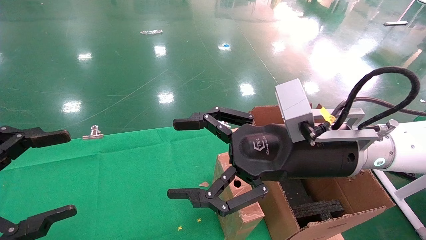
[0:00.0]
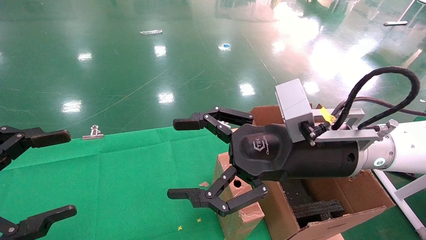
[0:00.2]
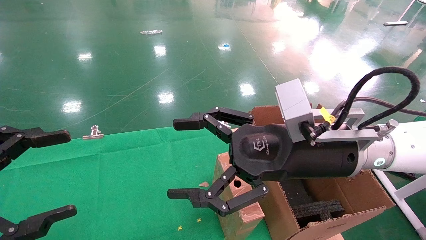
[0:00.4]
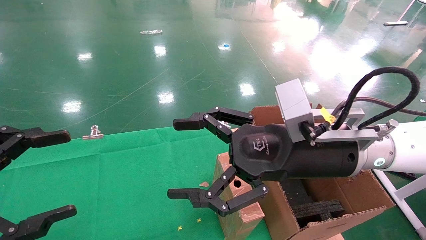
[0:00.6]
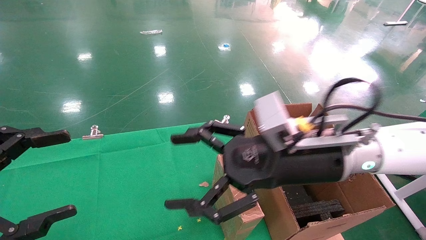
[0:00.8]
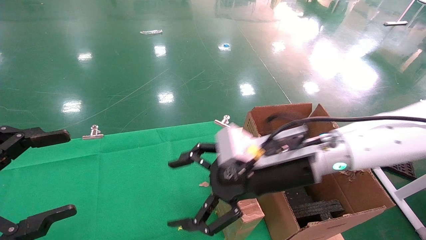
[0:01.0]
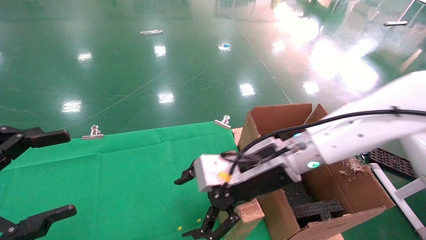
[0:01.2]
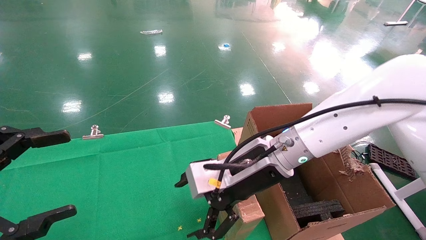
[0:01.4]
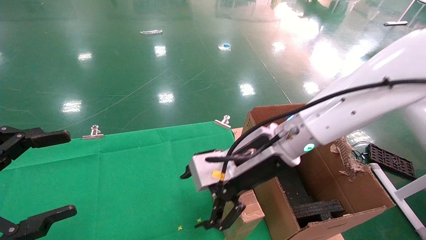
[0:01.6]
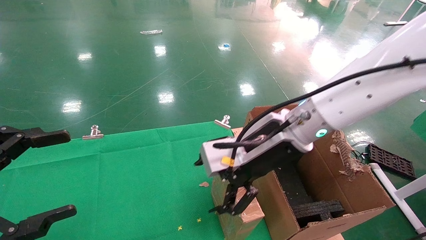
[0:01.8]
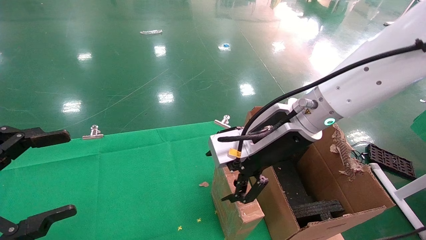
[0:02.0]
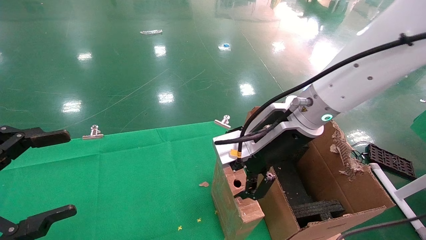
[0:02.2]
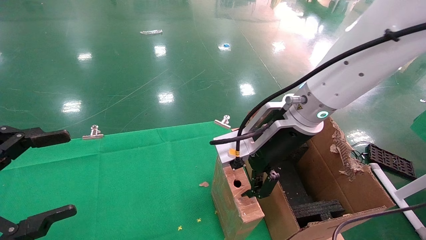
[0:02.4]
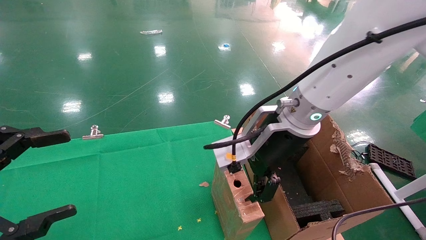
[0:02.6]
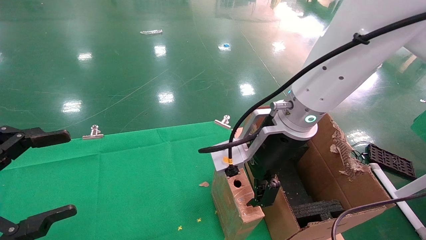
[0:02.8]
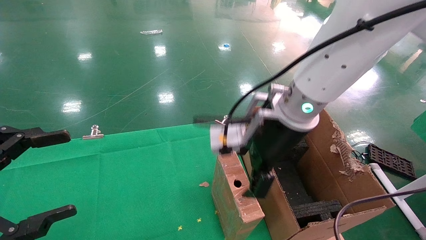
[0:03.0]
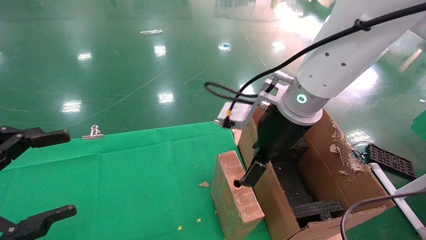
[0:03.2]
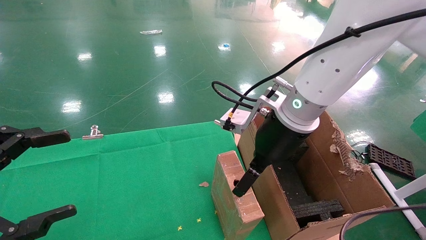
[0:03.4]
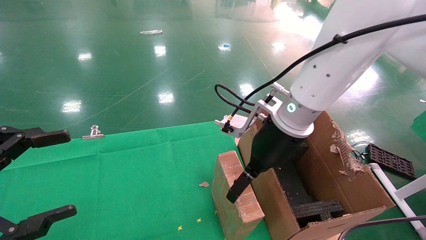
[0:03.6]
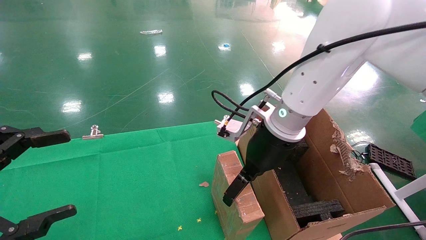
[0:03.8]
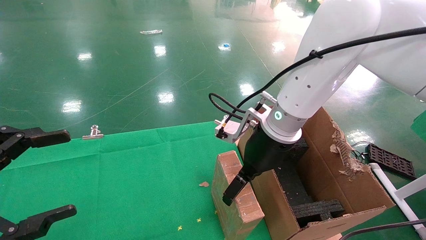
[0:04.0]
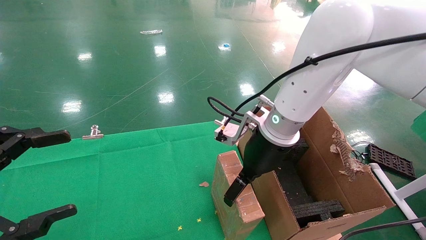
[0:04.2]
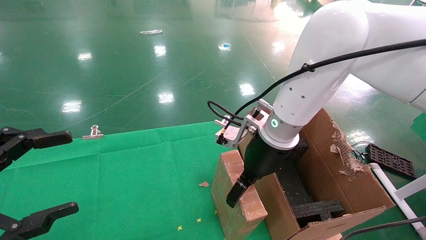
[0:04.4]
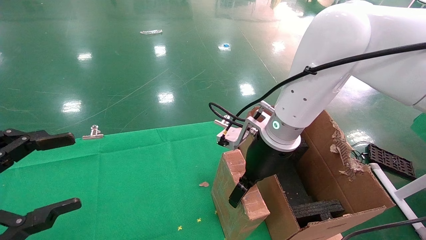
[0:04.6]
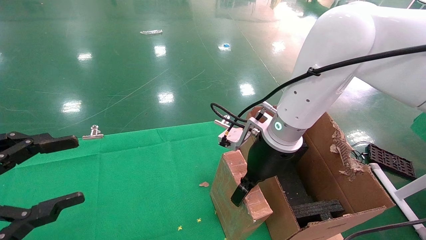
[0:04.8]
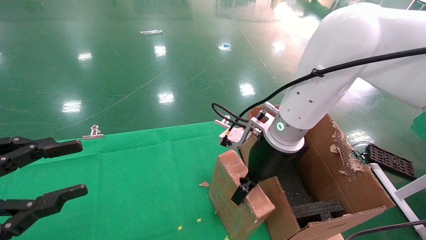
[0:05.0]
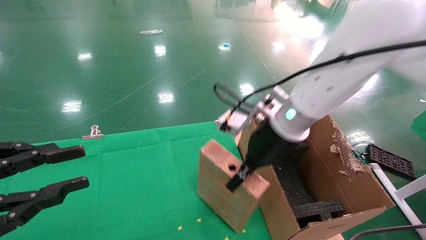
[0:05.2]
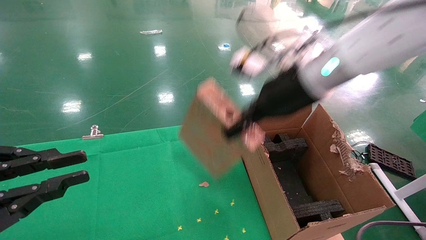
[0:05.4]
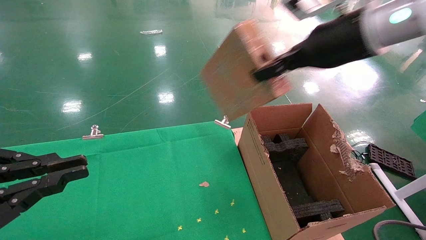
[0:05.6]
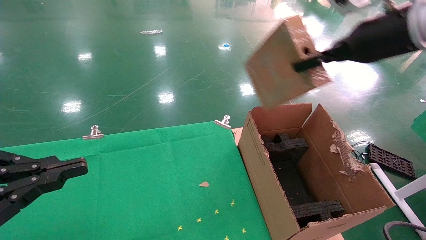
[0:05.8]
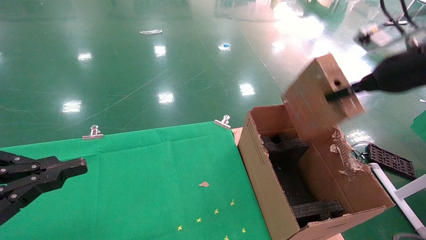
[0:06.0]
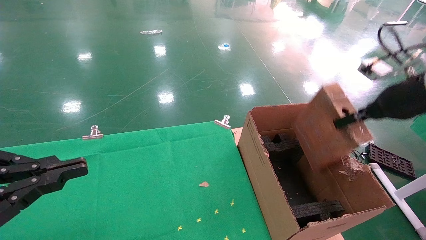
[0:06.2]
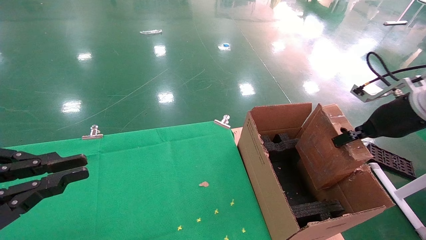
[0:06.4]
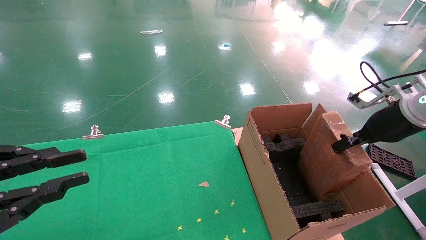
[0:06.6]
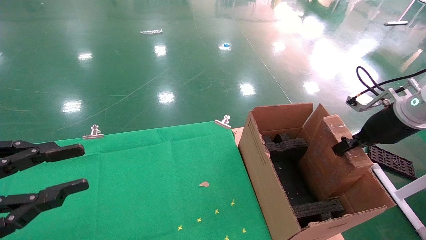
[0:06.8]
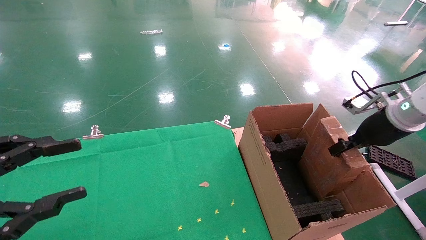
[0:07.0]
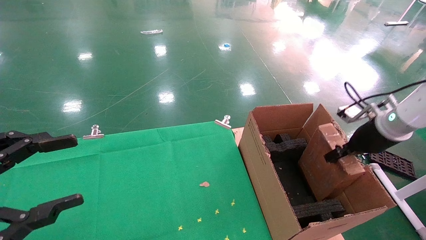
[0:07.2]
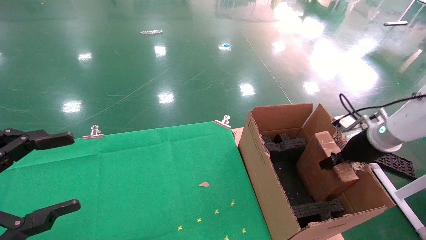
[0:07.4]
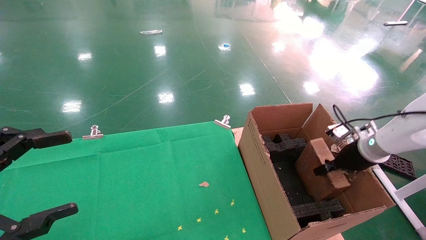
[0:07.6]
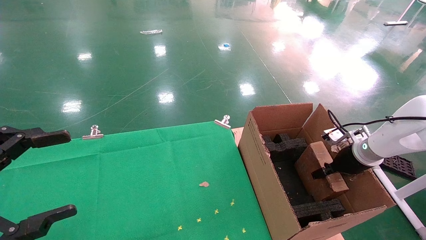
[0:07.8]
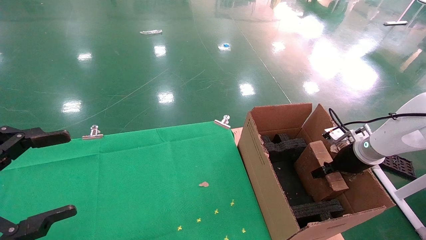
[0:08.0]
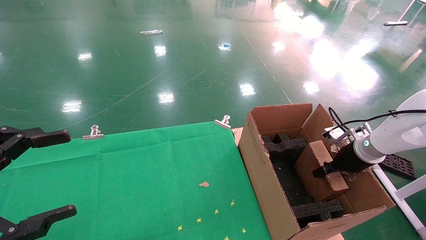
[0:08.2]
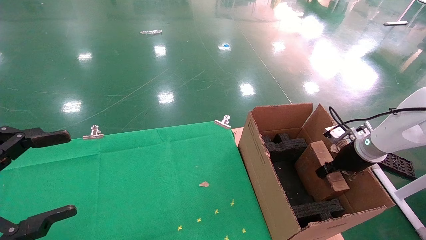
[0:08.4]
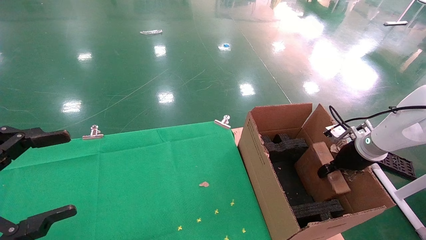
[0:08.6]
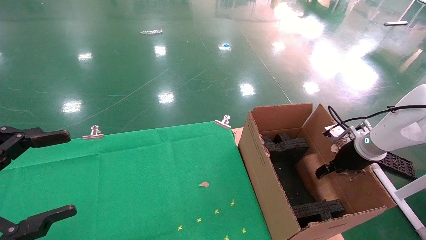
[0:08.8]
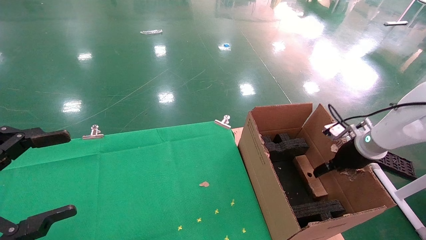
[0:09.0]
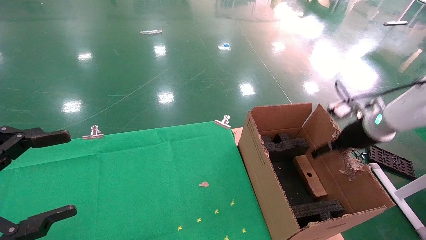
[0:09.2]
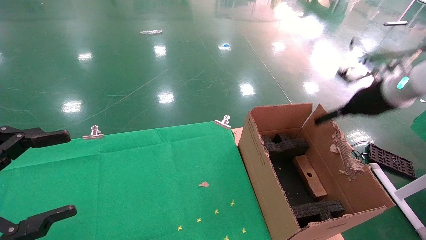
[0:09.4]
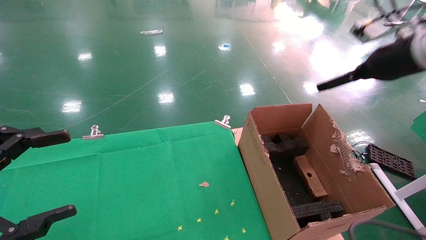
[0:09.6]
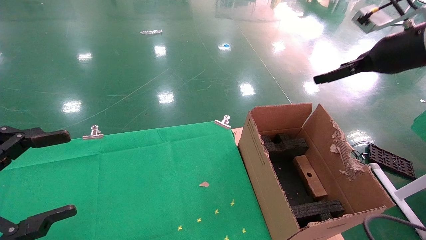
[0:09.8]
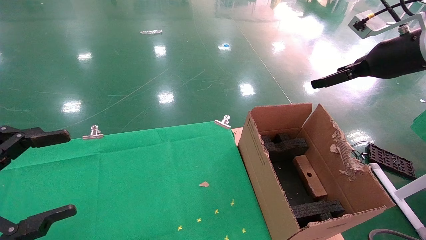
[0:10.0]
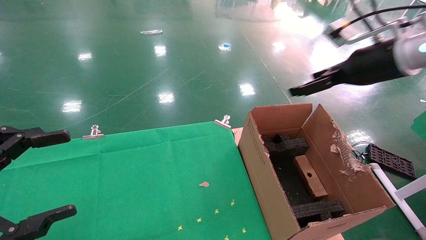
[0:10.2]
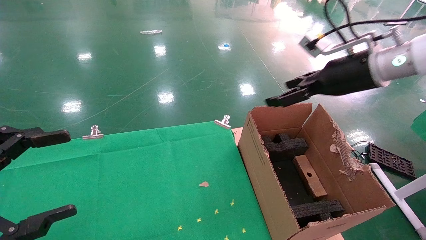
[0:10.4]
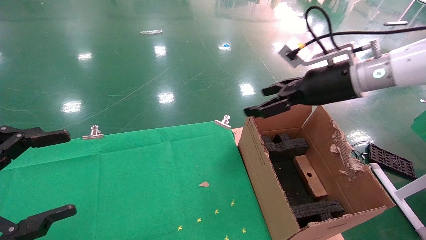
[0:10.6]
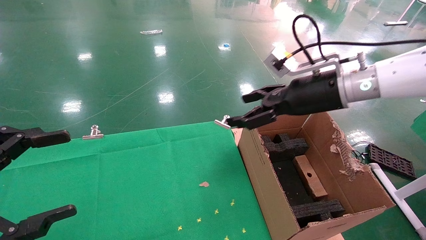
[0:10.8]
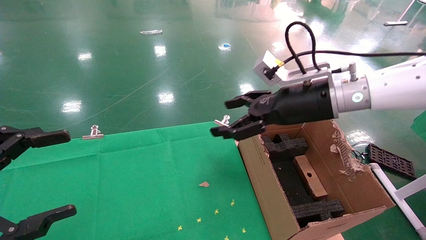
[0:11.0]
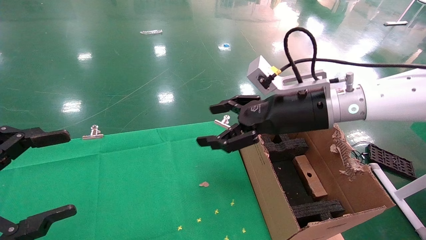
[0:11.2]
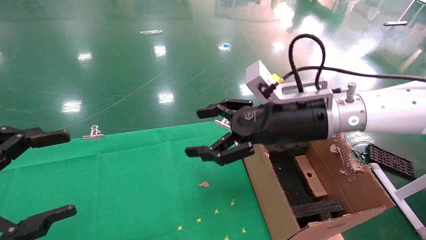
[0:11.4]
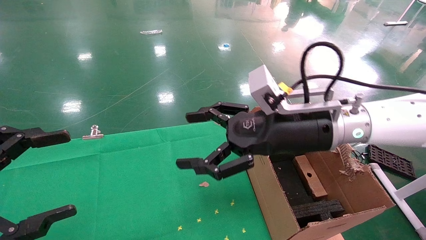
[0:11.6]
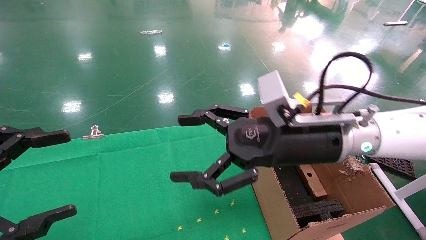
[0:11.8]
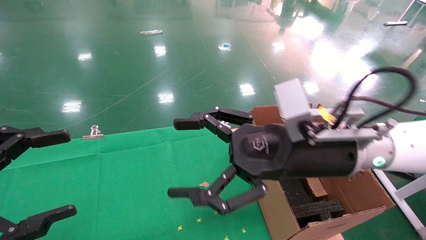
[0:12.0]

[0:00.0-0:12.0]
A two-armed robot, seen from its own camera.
Task of the whole recording: using a robotic arm to pick up a cardboard box and palace it the carton.
Step, 1.0 to 5.2 s: Pick up the mouse and the power cord paper box.
Step, 5.4 to 9.6 s: Place the mouse and the power cord paper box into the container.
0.0 to 1.6 s: The right gripper moves forward and to the left, about 10 cm.
1.6 to 3.0 s: The right gripper shifts roughly 5 cm upward.
3.0 to 4.4 s: The right gripper goes some 5 cm downward.
4.4 to 6.0 s: The right gripper is displaced to the right and upward by some 25 cm, and closes up, while the left gripper closes its fingers.
6.0 to 7.6 s: The right gripper goes approximately 20 cm downward. The left gripper opens up.
7.6 to 9.0 s: The right gripper opens its fingers.
9.0 to 10.4 s: The right gripper shifts roughly 20 cm upward and to the left, and opens.
10.4 to 12.0 s: The right gripper is displaced to the left, backward and downward by approximately 20 cm.

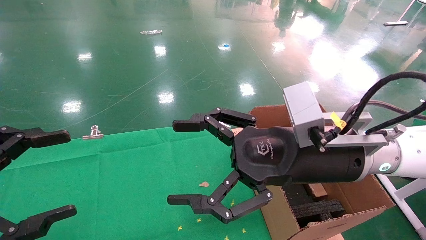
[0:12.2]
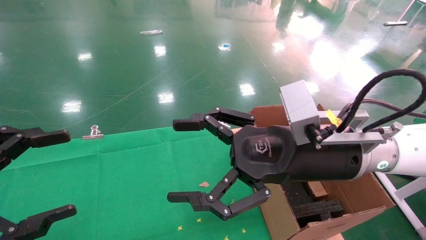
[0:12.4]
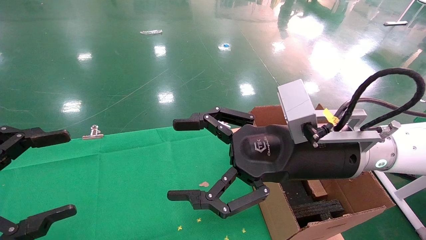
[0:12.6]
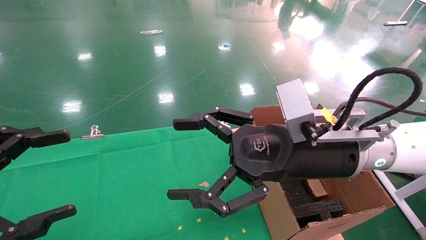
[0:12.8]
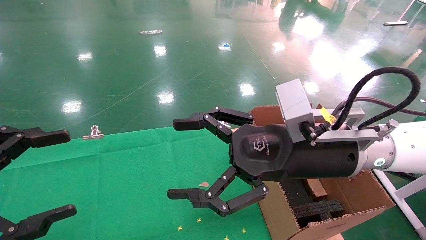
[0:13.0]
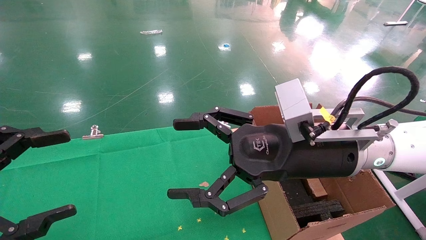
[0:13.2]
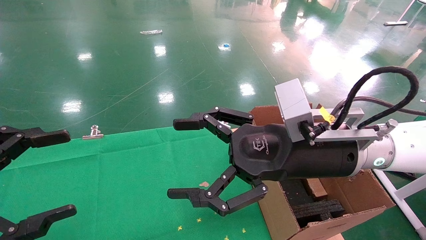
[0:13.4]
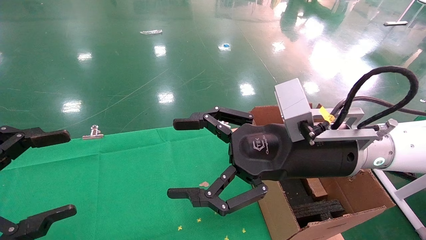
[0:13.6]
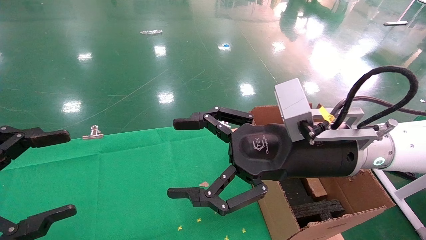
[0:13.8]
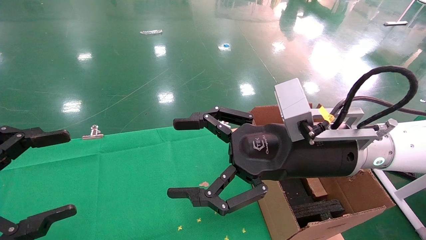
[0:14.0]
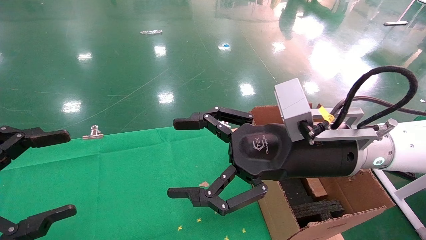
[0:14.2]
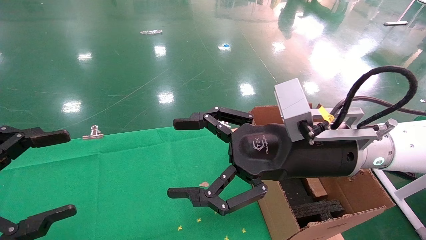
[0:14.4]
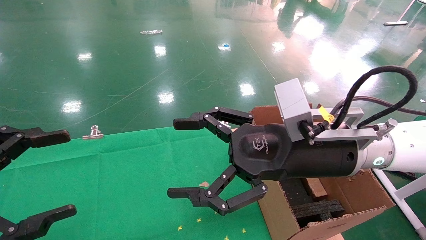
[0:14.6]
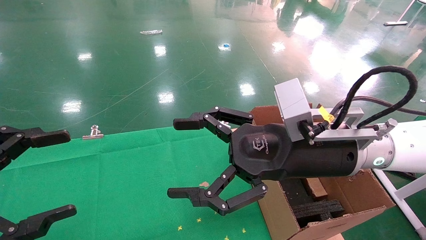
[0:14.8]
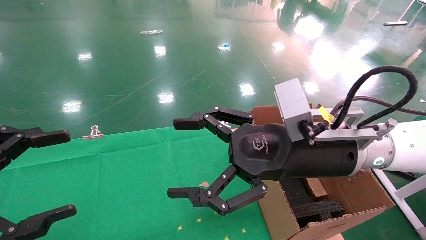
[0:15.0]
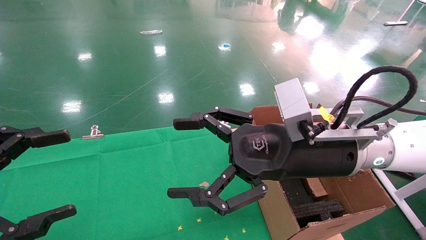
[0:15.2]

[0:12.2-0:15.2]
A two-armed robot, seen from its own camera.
Task of the whole recording: using a robotic arm to pick up a cardboard box and palace it the carton.
12.2 to 15.2 s: Both grippers stay about where they are.

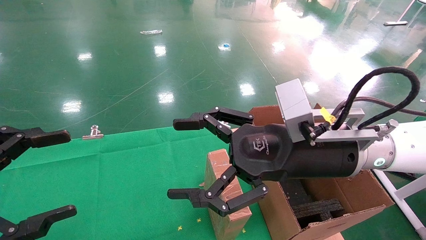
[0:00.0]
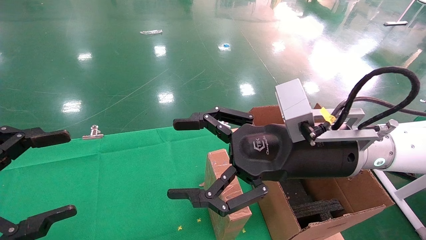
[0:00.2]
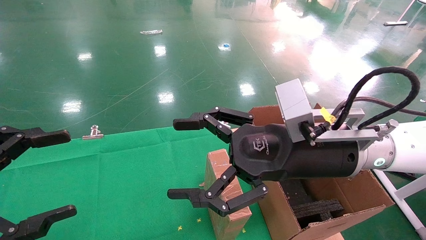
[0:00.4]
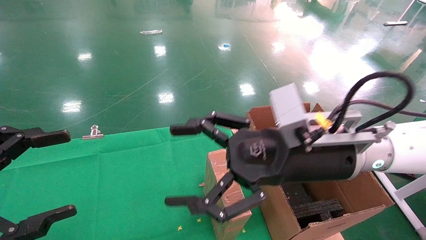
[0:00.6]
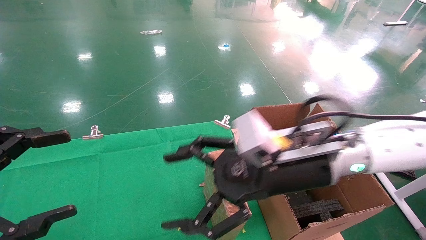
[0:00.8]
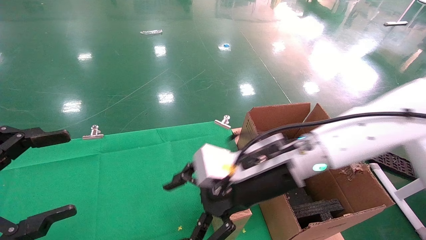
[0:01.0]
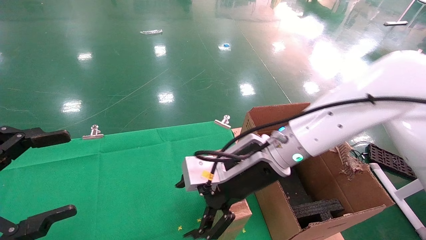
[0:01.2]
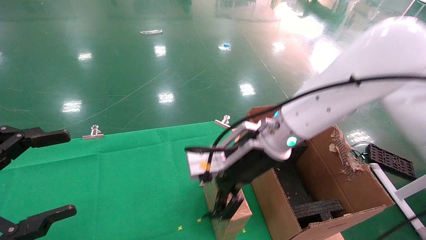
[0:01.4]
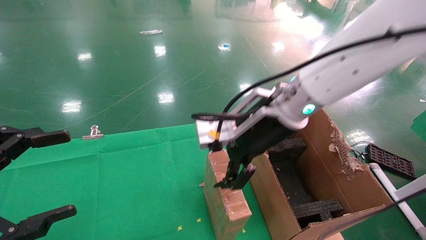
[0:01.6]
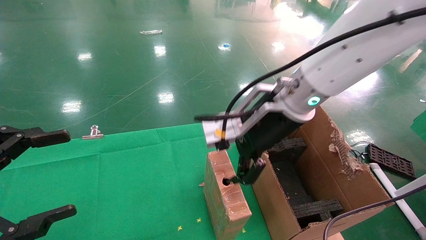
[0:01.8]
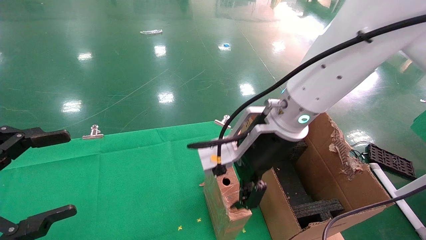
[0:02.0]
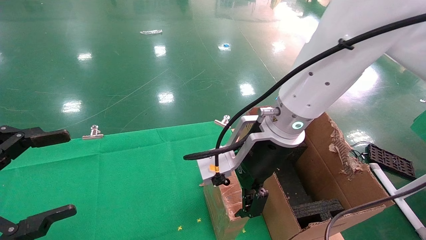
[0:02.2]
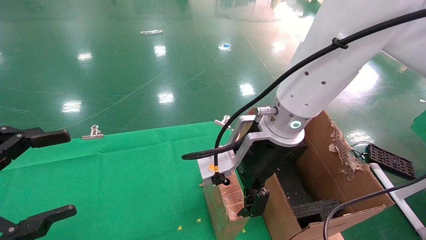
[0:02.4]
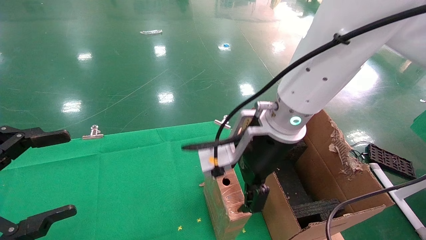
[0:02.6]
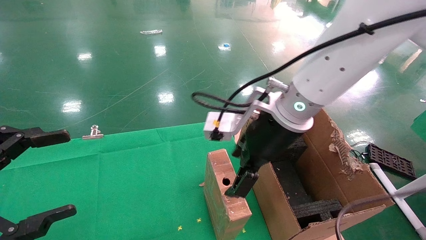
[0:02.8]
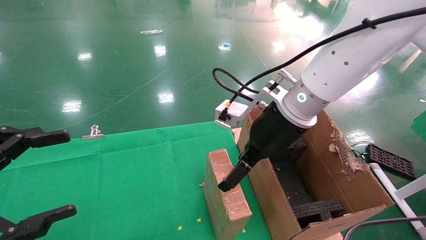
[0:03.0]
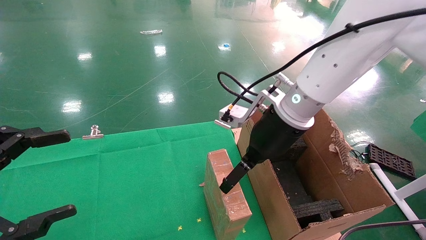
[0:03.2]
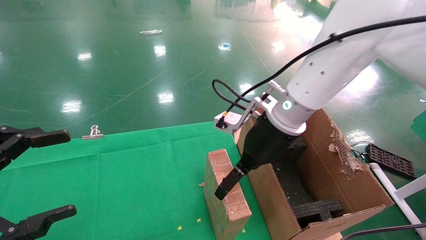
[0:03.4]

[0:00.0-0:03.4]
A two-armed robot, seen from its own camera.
Task of the whole recording: using a robotic arm to pick up a cardboard box and palace it the carton.
0.0 to 1.6 s: The right gripper is displaced forward and to the left by roughly 10 cm.
